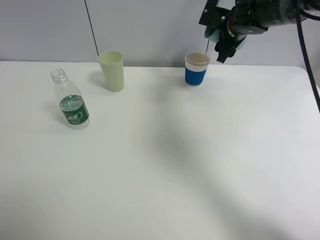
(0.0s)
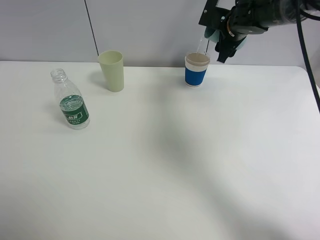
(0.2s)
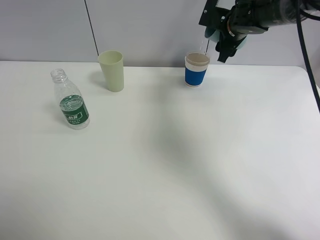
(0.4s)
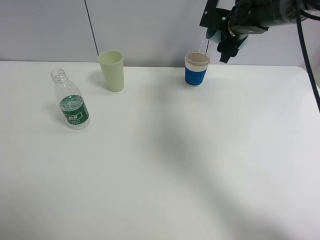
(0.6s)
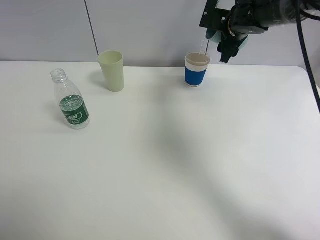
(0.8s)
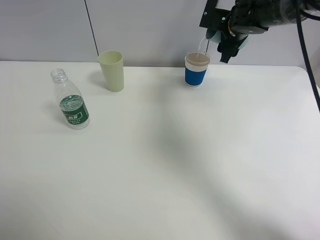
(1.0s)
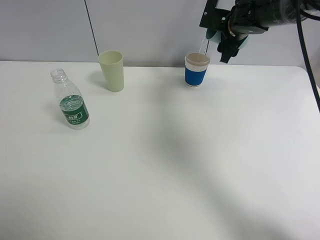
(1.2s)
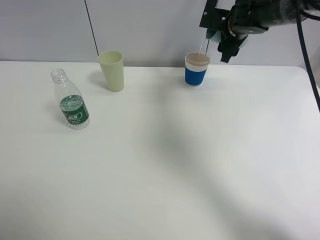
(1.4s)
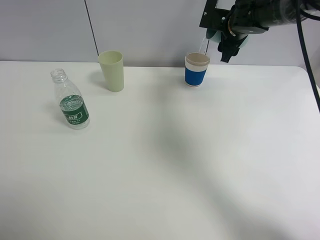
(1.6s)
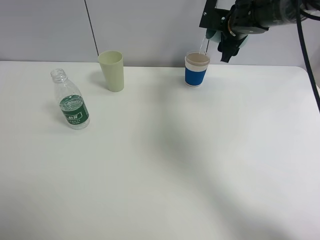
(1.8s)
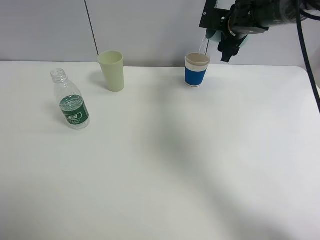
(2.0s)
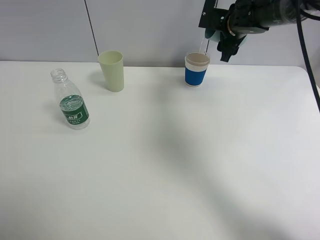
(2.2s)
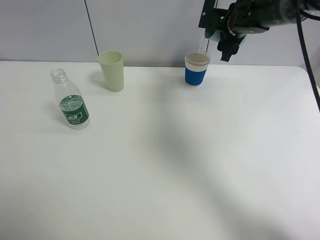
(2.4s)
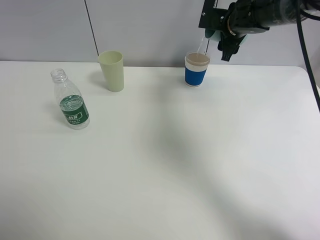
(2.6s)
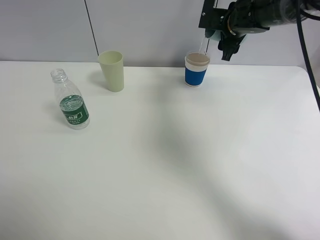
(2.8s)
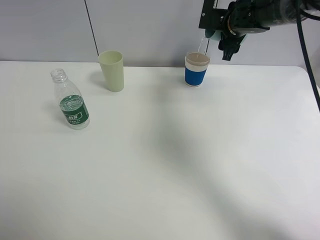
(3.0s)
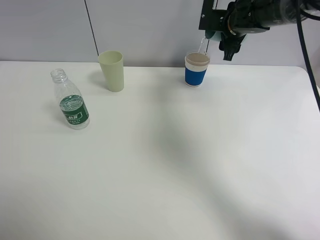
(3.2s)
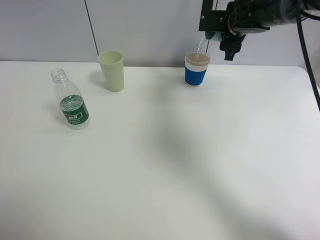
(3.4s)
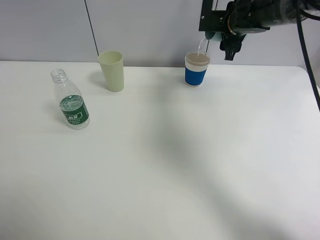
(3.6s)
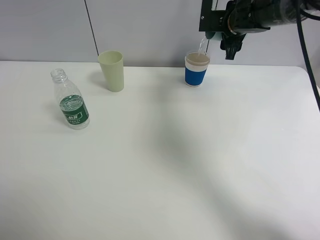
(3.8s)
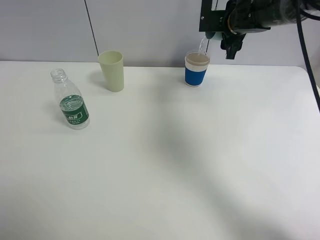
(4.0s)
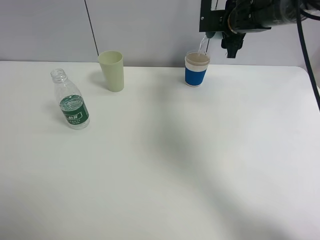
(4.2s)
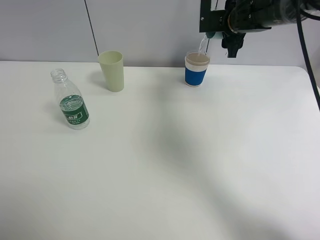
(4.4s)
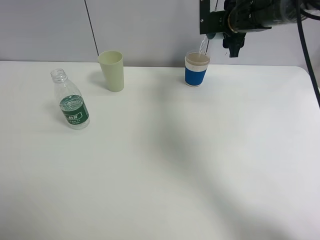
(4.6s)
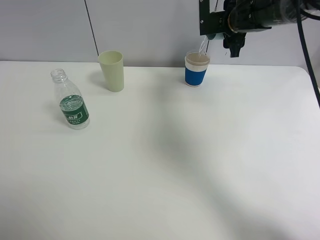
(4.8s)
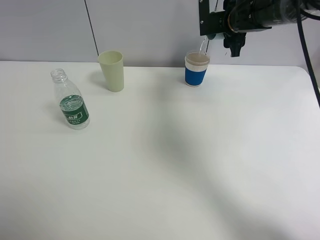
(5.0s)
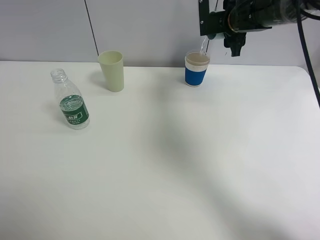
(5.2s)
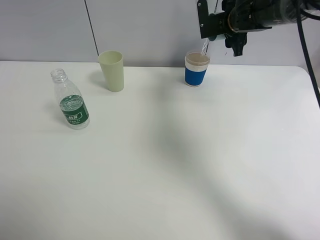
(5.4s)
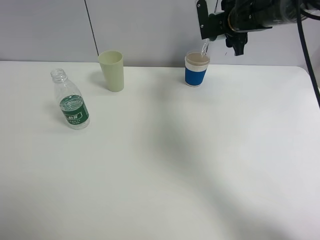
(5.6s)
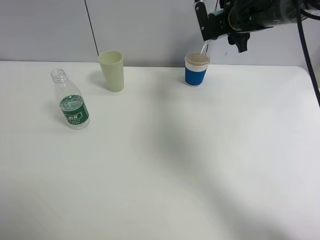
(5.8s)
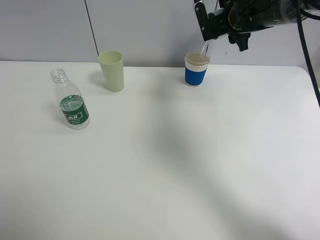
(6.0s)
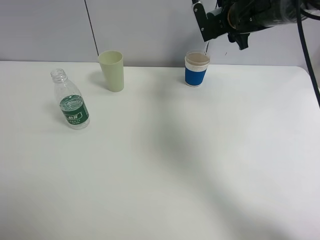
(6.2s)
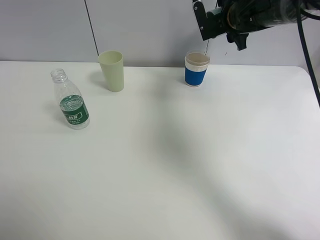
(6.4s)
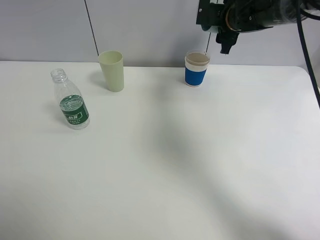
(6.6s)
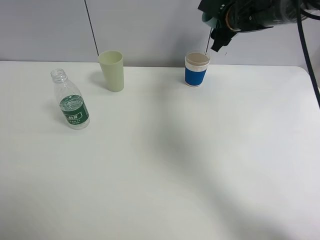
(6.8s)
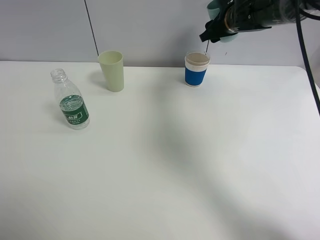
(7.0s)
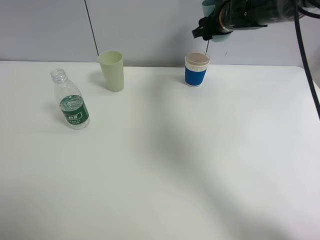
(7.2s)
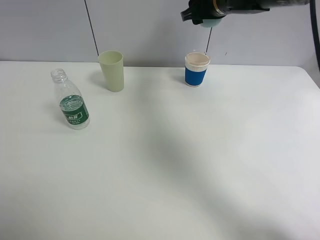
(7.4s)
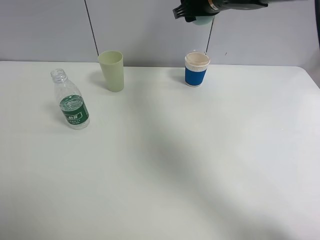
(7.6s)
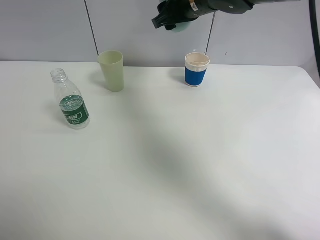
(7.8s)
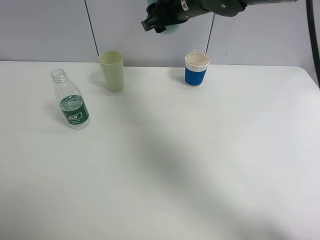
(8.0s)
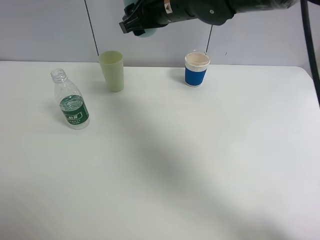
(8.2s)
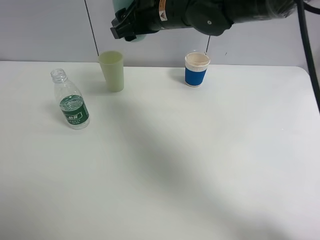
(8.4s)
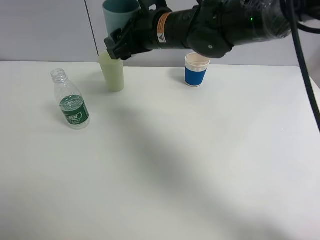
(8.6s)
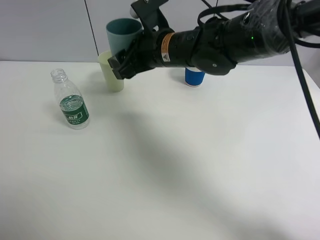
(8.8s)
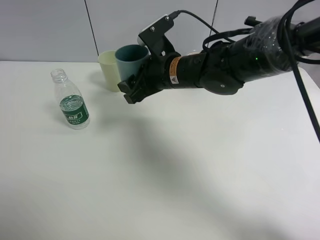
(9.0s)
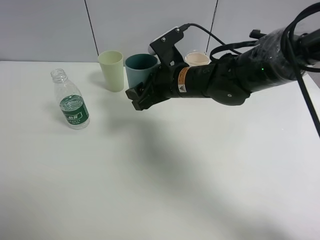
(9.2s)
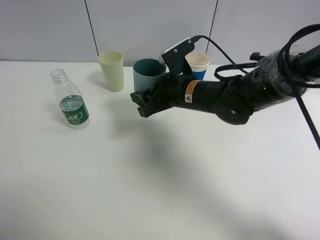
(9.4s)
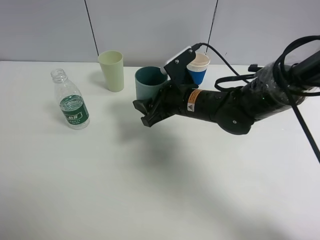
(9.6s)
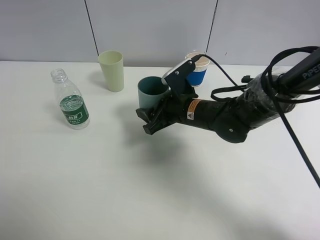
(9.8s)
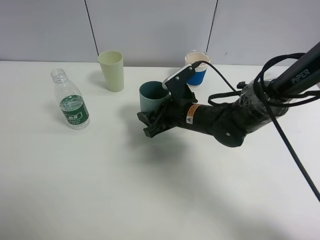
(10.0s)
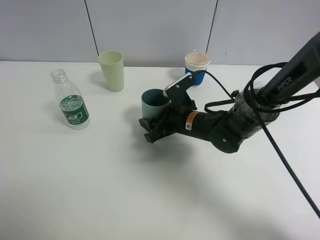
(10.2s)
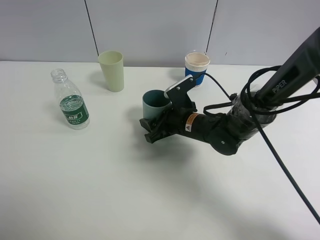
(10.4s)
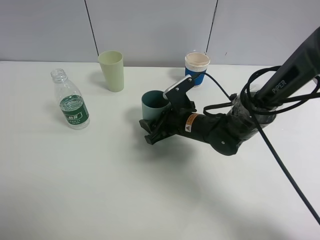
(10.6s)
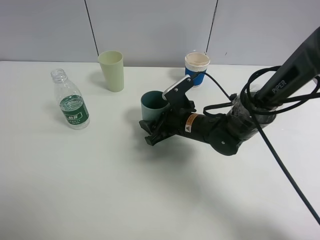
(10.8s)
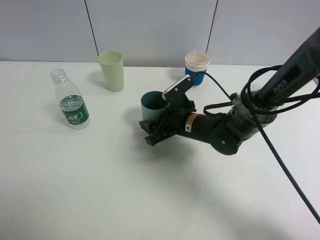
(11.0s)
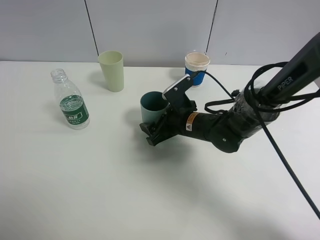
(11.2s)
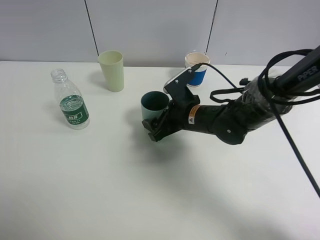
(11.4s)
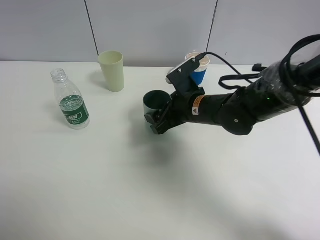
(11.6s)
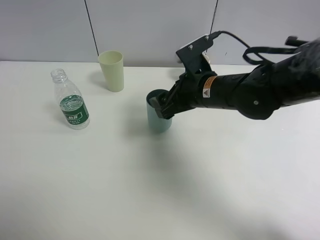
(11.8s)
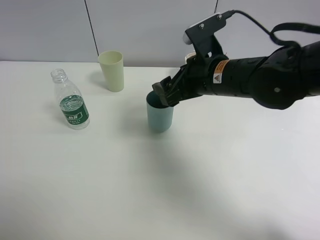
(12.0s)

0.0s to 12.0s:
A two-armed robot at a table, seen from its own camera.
Task of the whole recording: use a clamp to hold the bottle of the drink, pour the beverage into a random cup, then clamp the cup containing the drink and pour the drink into another random cup.
Step, 6.6s to 11.2s: Place the blue plastic cup on the table with right gripper.
3.0s to 4.4s: The grippers move only a little.
6.0s to 7.6s: The right gripper moves to the left and upward, some 10 cm.
7.6s to 9.0s: The right gripper travels backward, downward and to the left by approximately 15 cm.
9.0s to 10.4s: The right gripper shifts about 10 cm downward.
10.4s to 12.0s: The right gripper moves upward, roughly 15 cm, and opens its fingers.

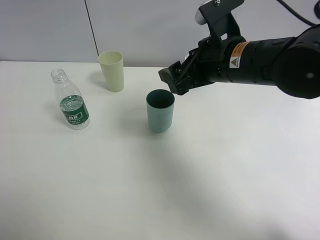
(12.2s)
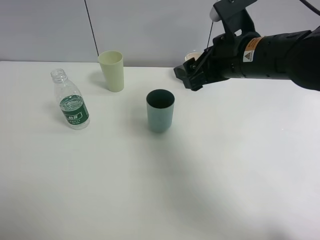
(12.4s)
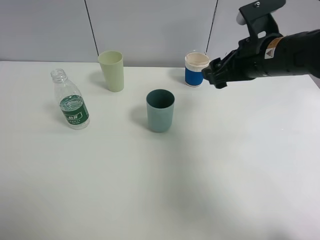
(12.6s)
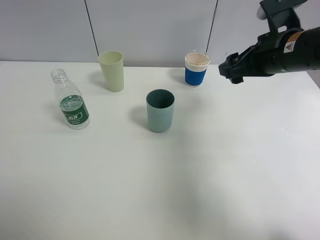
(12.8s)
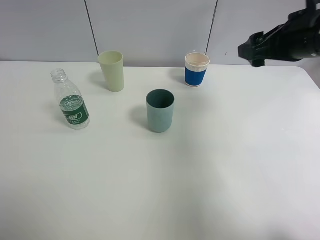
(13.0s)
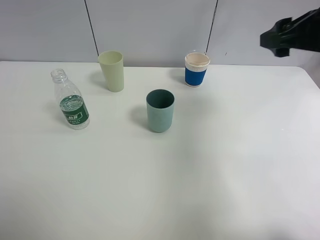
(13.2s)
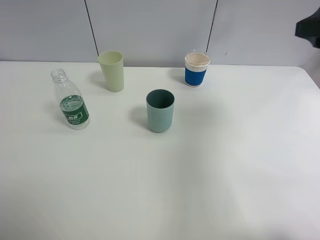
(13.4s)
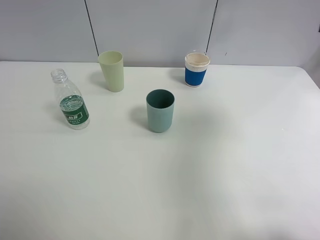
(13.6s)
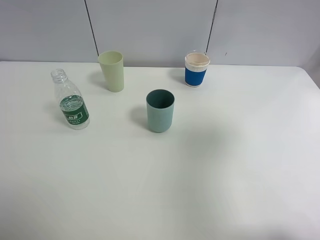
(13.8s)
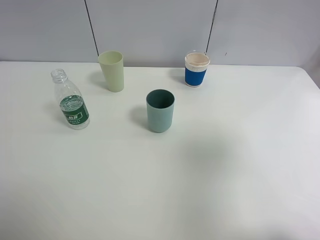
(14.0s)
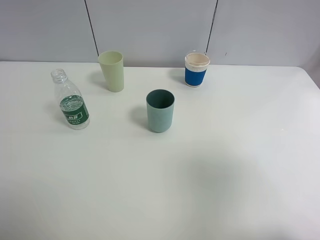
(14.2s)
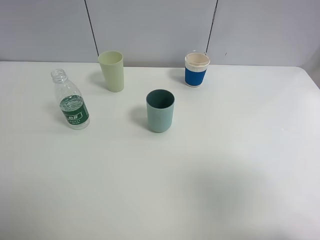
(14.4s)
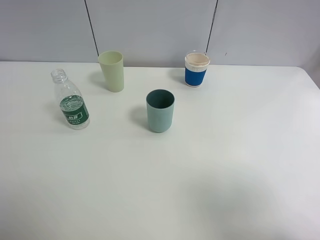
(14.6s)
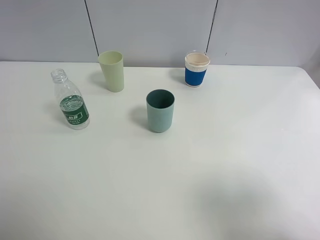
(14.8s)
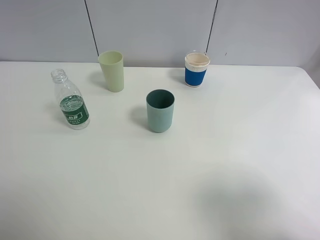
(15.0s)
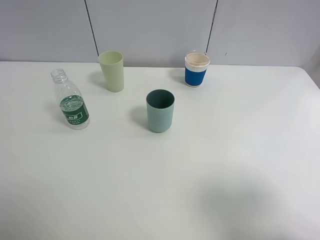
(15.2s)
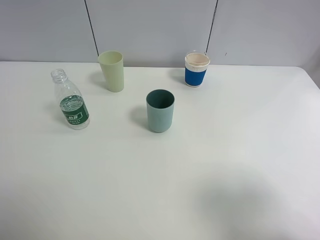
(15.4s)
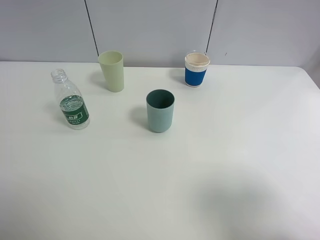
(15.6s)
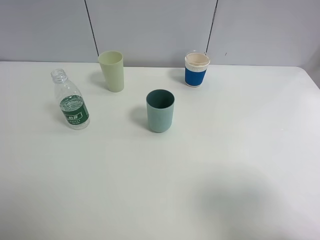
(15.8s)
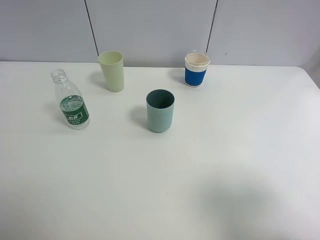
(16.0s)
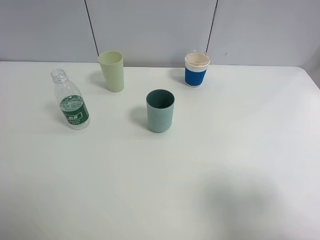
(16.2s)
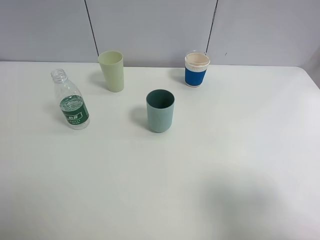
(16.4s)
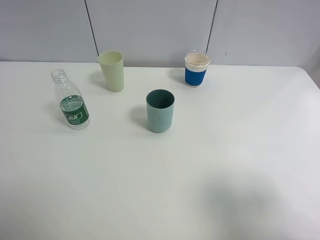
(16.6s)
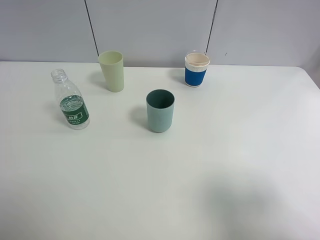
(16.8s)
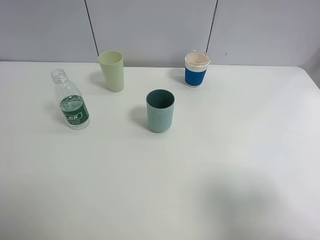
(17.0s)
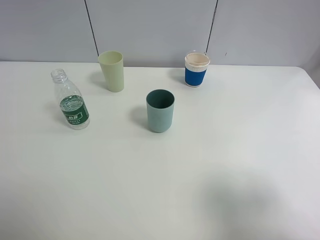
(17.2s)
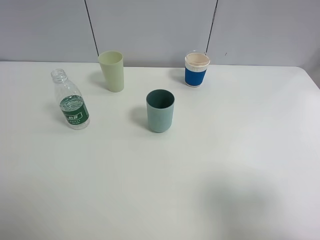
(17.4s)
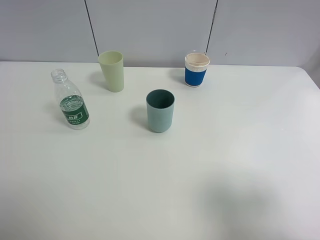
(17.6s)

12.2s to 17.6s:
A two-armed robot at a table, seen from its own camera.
Task of the whole recording: use a clamp to hold the bottle of the drink, pour the beverage into a random cup, then clamp the cup containing the drink and pour the drink into another random cup.
12.2s to 13.6s: The right gripper travels to the right, upward and backward by roughly 25 cm.
13.6s to 15.0s: The right gripper shifts about 20 cm backward and downward.
16.2s to 17.6s: Neither gripper changes place.

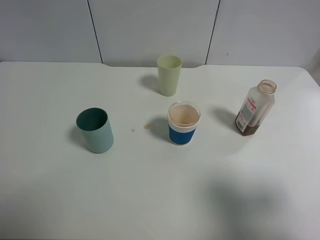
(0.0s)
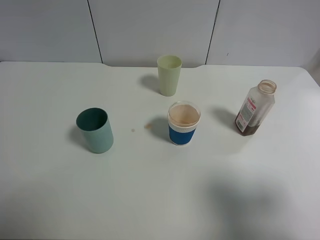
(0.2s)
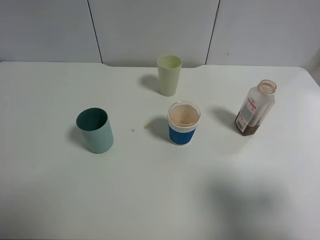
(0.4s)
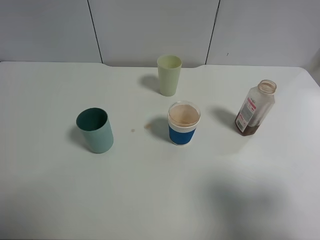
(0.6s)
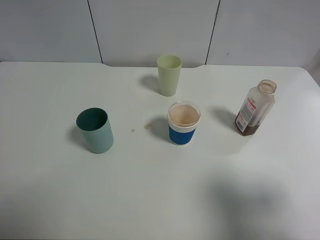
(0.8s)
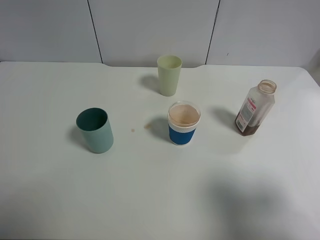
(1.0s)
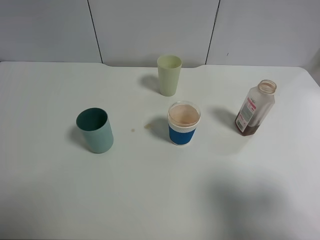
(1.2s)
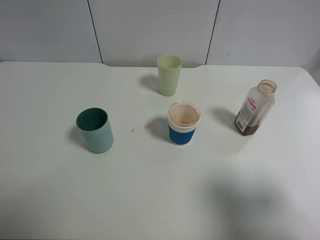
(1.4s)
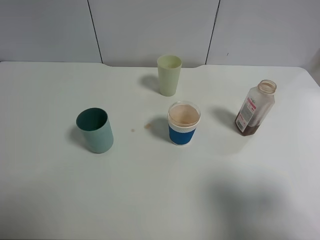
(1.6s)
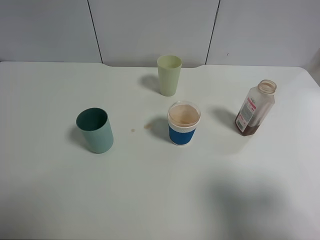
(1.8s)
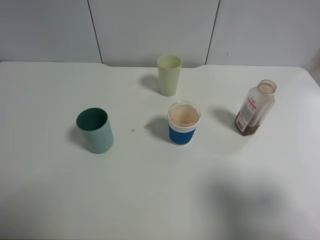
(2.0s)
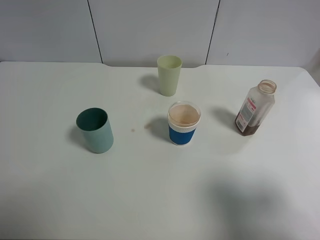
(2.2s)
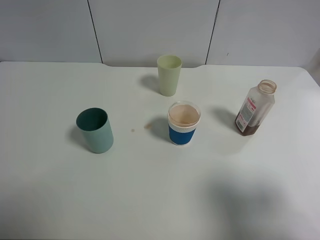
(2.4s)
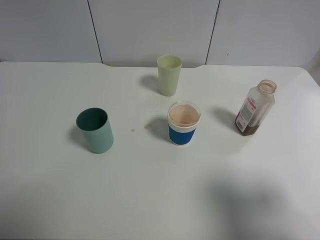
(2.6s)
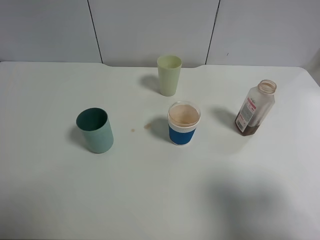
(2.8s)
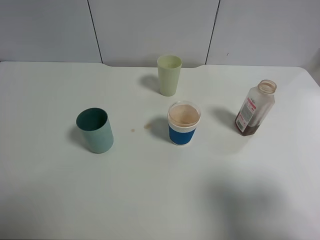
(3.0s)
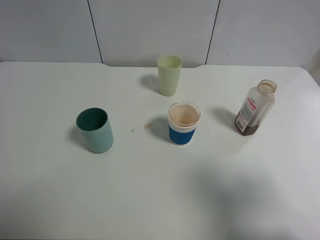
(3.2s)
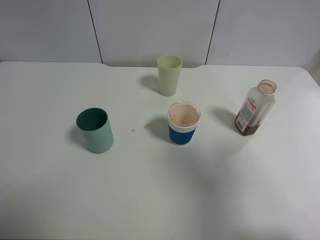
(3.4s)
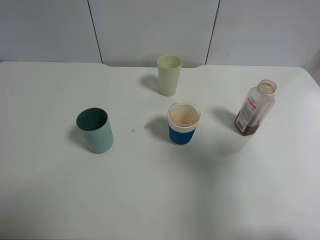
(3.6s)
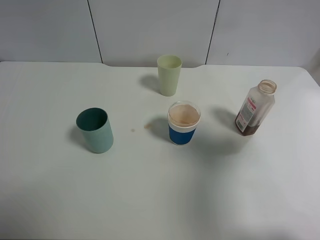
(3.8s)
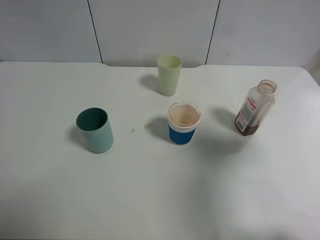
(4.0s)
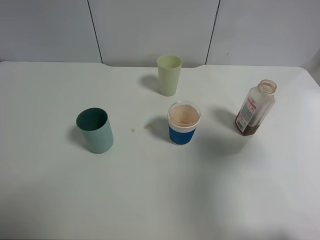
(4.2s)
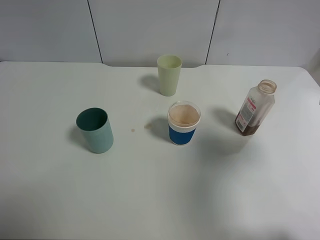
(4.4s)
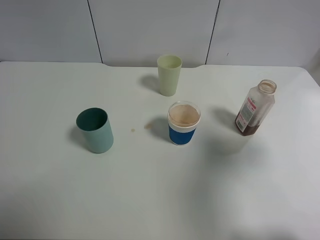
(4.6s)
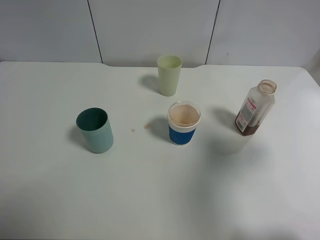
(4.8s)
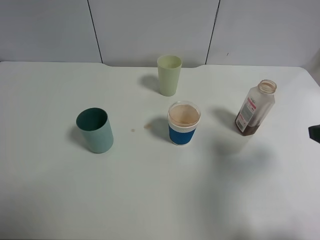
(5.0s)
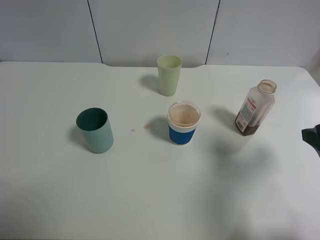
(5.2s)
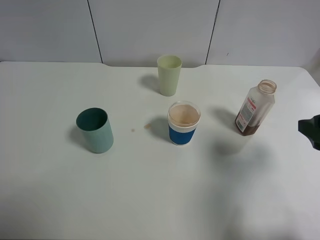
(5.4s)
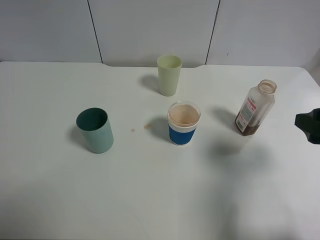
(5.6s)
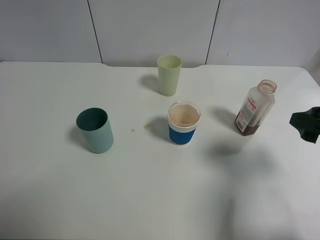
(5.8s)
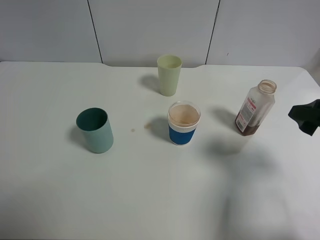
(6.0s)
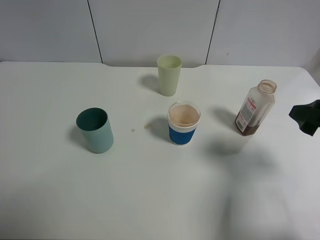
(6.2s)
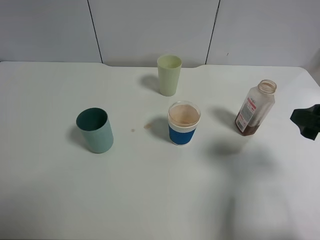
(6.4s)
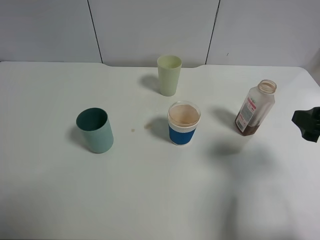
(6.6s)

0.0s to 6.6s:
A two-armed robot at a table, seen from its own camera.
Task of the whole recording: use a clamp to hold the bottle of the drink, pour the beverage into a random cup, then clamp the cup containing the drink and pour the drink into another random cup.
0.0s to 1.6s: Both grippers stay about where they are.
1.6s to 3.2s: The grippers stay close to where they were, moving slightly.
3.2s to 5.0s: The right gripper moves forward and downward, approximately 15 cm.
